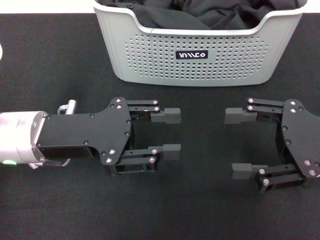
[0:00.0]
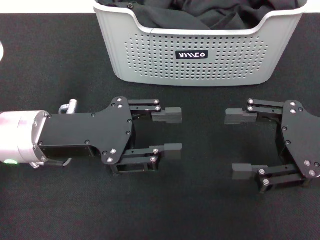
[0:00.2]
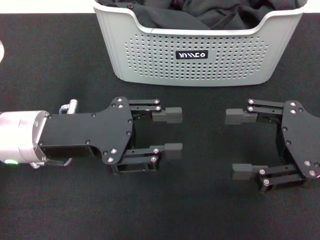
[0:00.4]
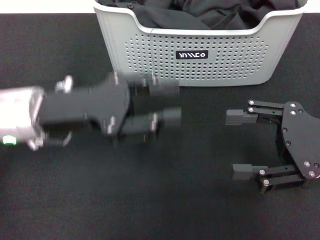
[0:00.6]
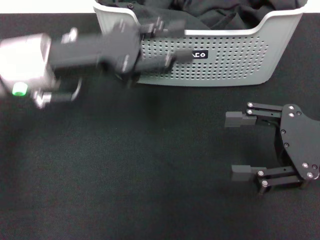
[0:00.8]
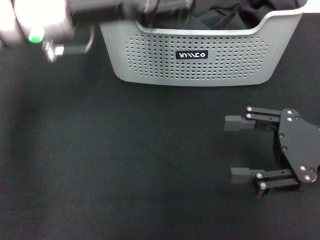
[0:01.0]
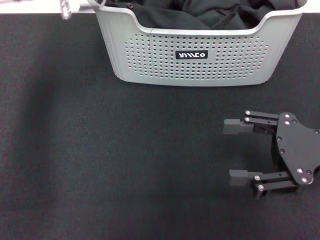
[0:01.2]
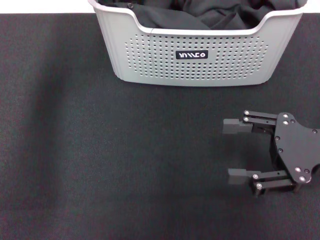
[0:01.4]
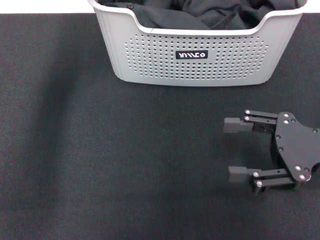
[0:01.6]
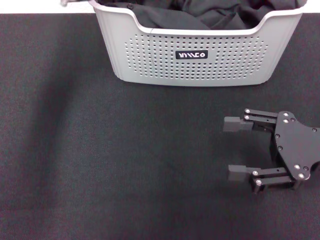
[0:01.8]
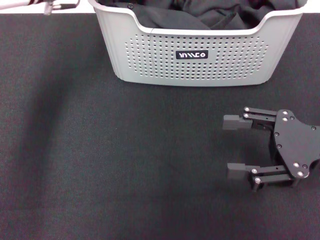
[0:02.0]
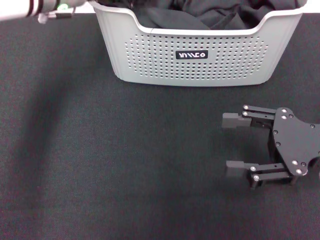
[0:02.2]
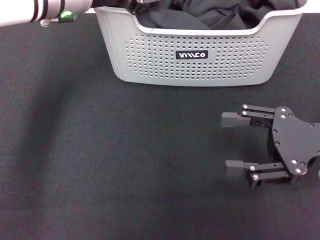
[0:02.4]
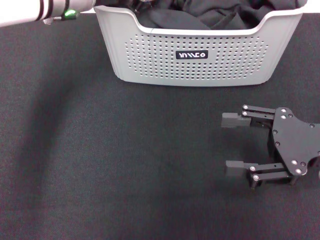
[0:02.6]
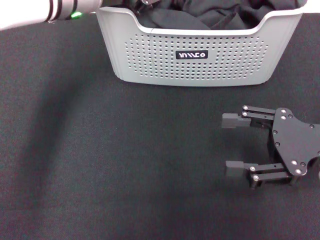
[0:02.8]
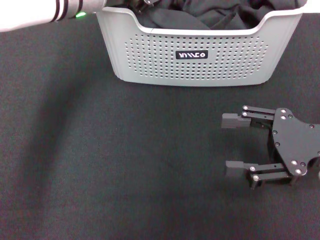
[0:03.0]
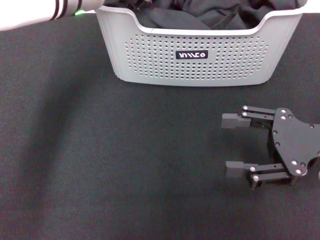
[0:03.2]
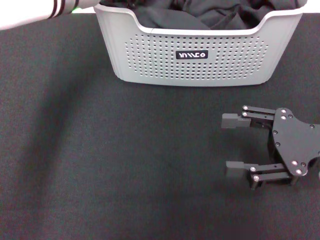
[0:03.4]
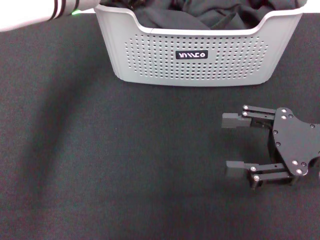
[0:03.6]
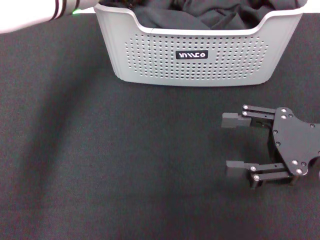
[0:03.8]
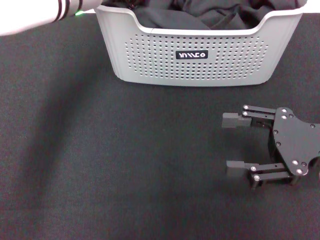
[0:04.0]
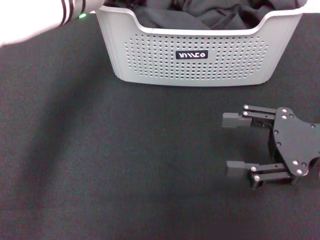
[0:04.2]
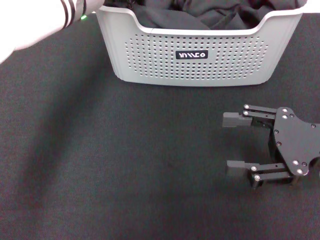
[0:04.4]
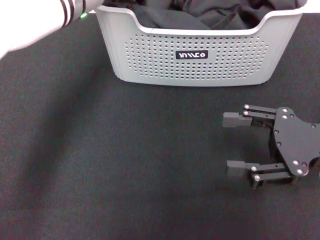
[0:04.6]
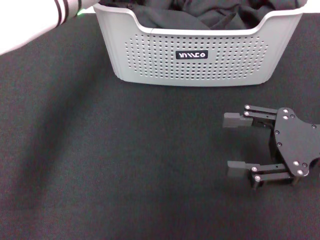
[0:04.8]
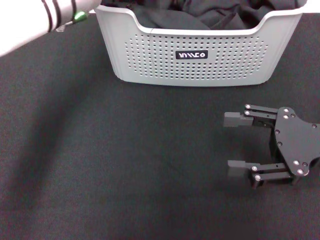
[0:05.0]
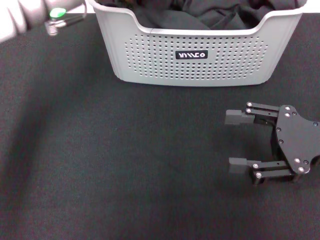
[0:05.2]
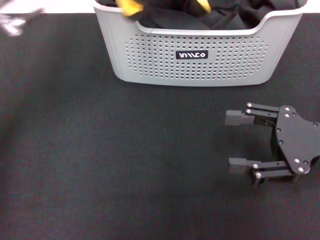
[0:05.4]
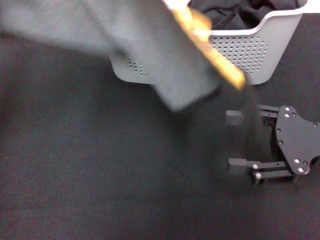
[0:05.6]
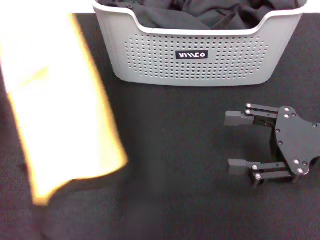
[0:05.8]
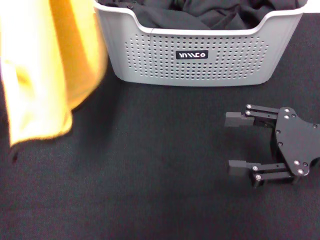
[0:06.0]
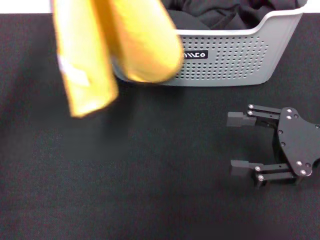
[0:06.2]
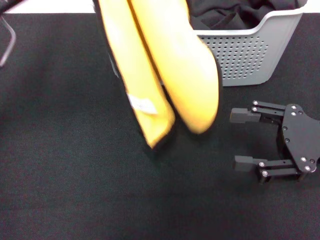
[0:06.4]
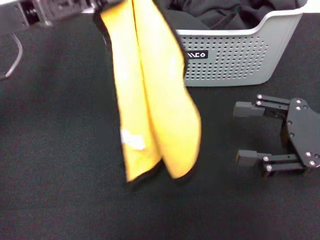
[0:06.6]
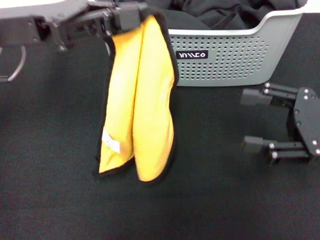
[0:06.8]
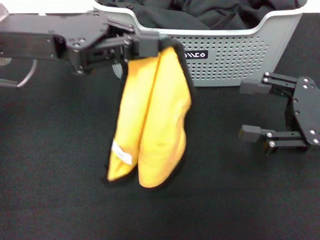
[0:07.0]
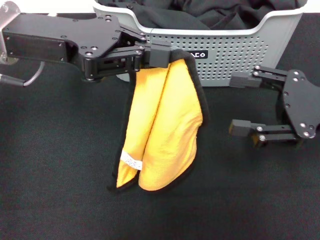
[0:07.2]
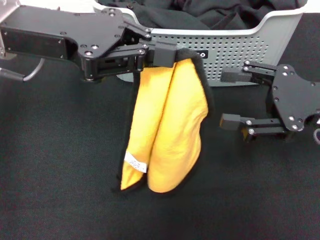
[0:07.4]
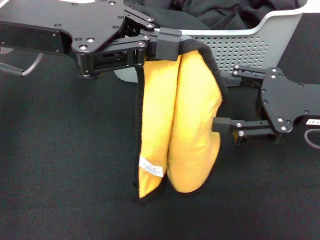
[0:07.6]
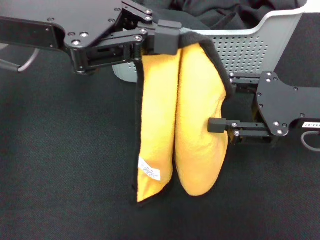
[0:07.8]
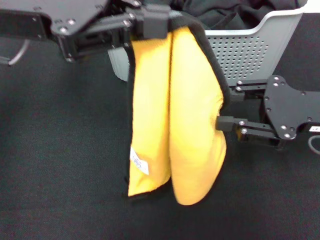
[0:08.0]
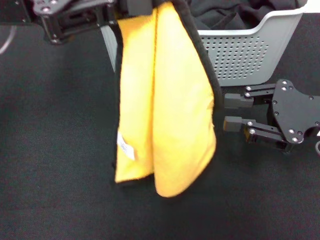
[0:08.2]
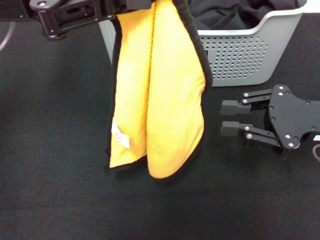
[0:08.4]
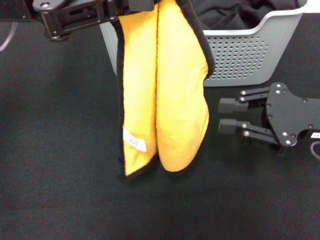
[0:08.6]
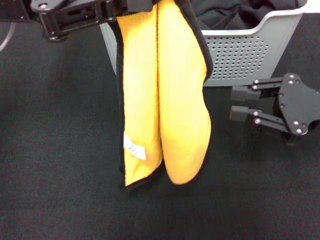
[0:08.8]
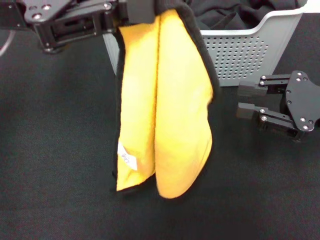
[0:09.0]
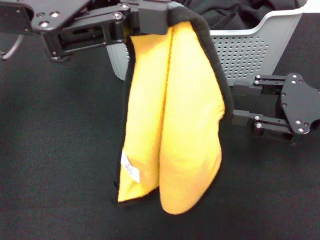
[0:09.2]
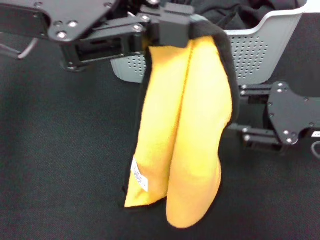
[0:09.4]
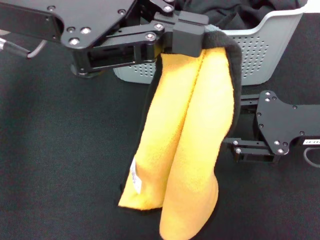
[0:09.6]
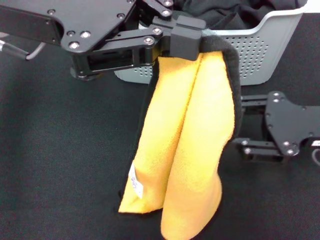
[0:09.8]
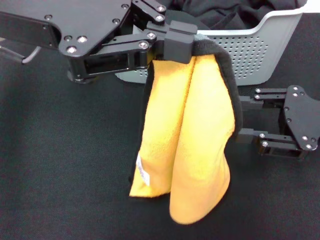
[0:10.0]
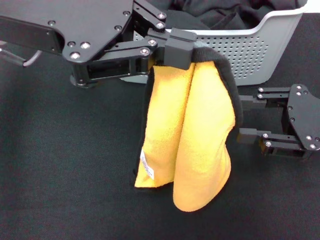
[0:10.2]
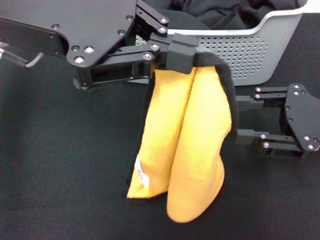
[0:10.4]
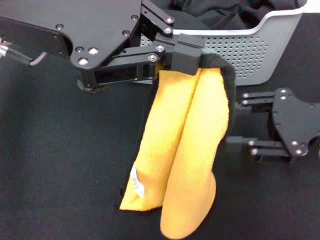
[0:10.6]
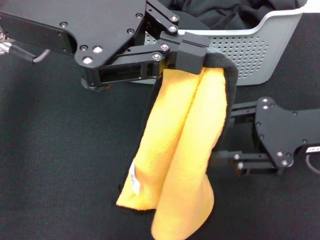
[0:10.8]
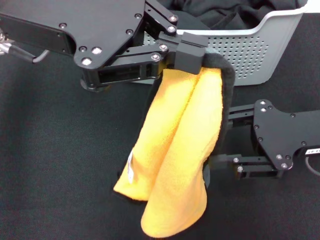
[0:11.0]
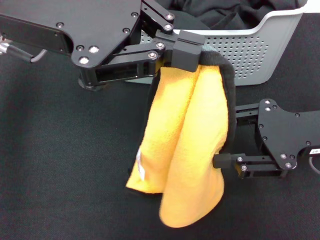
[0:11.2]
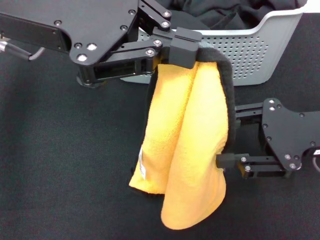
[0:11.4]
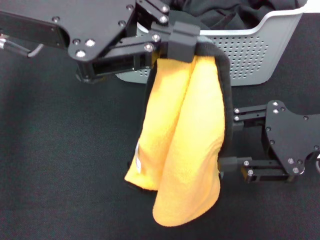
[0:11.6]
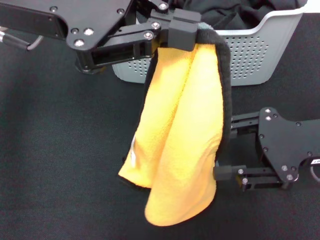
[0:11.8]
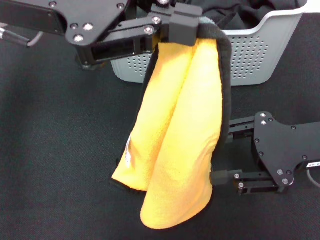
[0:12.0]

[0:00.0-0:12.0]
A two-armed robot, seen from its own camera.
Task of the whole recording: pick up the towel from the storage box and lay it flat on the black tablecloth.
Step, 0:00.0 to 0:05.2: Pick up a towel with the left gripper.
0:00.0 to 0:01.6: The left gripper travels forward, upward and to the right by about 20 cm.
0:03.0 to 0:04.4: The left gripper closes.
0:04.4 to 0:06.0: The left gripper goes about 15 cm to the left and backward.
0:06.0 to 0:07.6: The left gripper is displaced to the right by about 5 cm.
0:07.6 to 0:09.0: The right gripper closes.

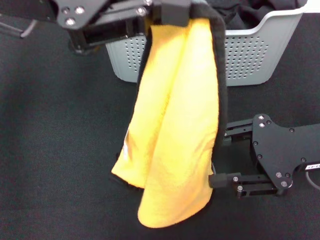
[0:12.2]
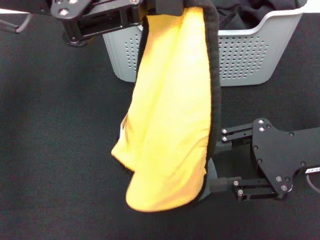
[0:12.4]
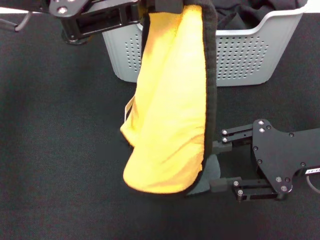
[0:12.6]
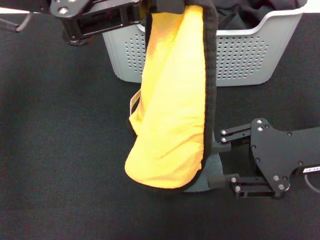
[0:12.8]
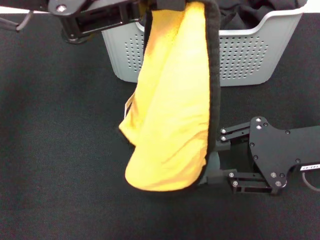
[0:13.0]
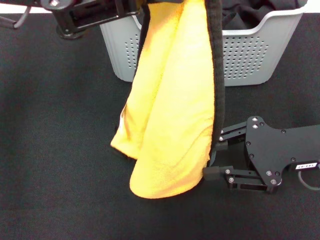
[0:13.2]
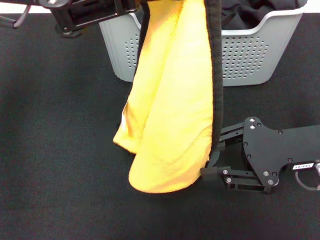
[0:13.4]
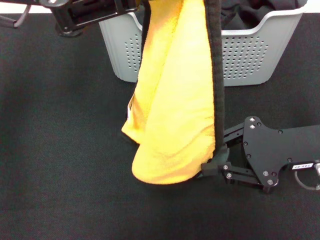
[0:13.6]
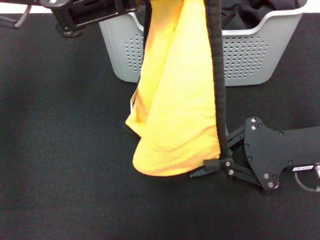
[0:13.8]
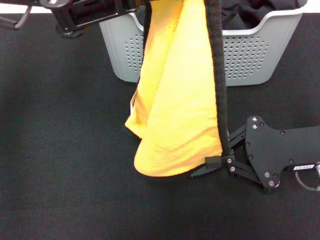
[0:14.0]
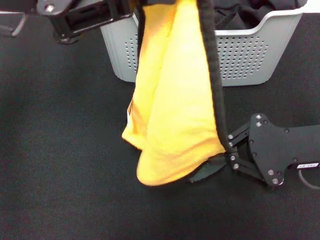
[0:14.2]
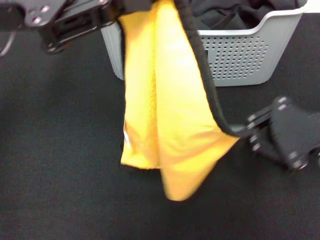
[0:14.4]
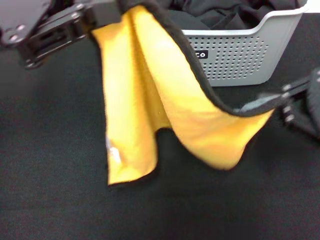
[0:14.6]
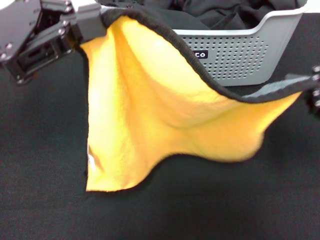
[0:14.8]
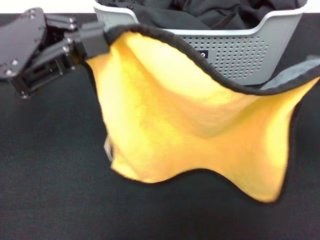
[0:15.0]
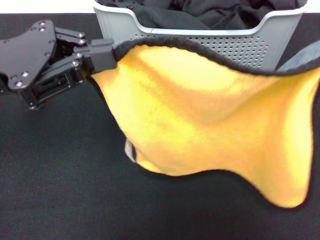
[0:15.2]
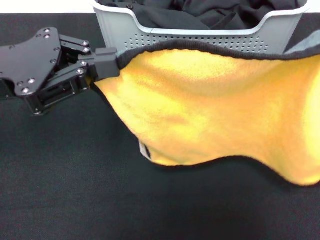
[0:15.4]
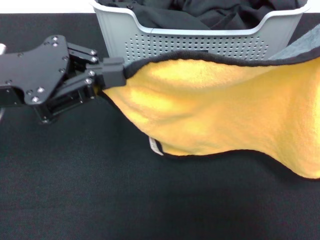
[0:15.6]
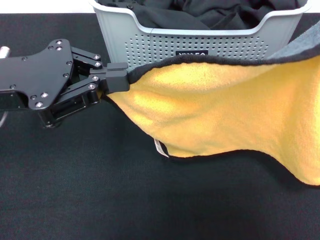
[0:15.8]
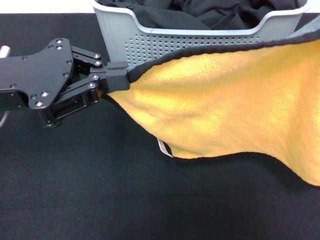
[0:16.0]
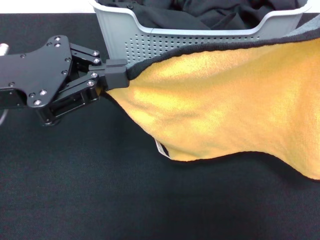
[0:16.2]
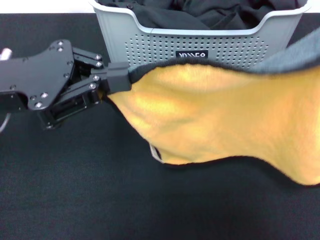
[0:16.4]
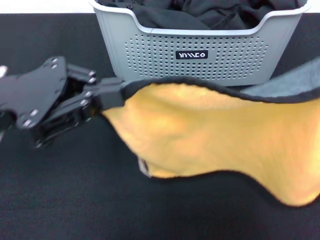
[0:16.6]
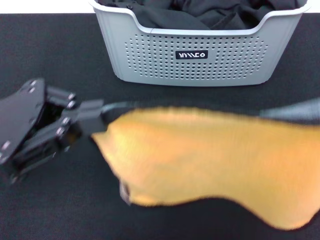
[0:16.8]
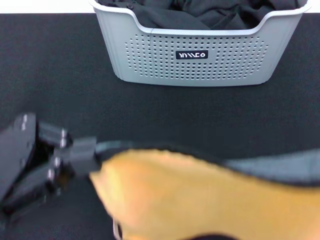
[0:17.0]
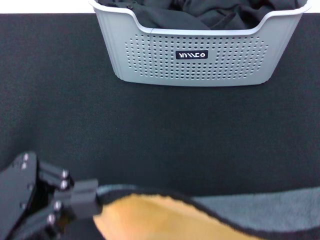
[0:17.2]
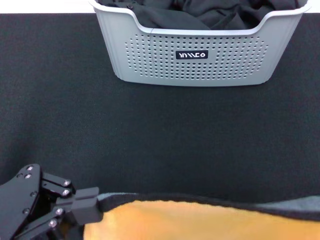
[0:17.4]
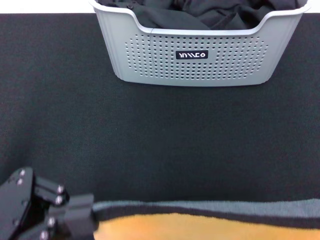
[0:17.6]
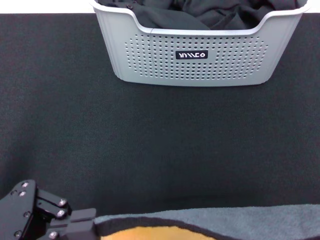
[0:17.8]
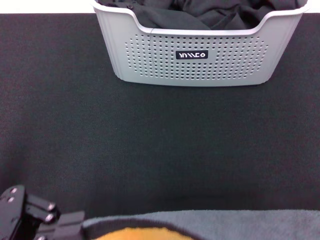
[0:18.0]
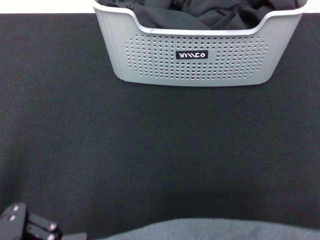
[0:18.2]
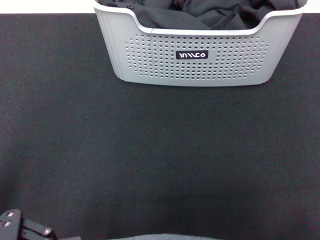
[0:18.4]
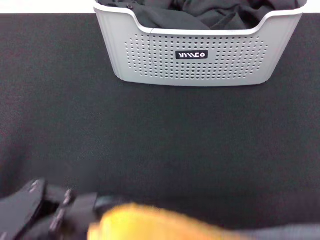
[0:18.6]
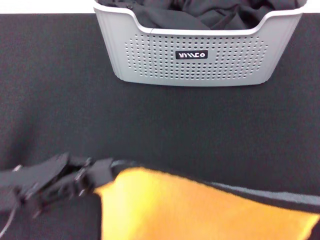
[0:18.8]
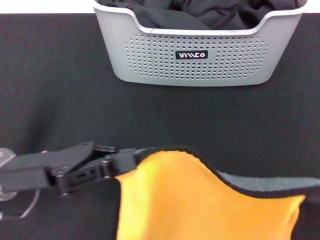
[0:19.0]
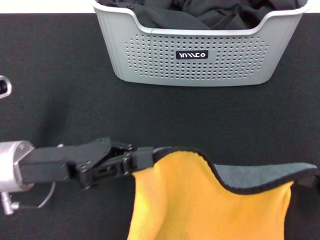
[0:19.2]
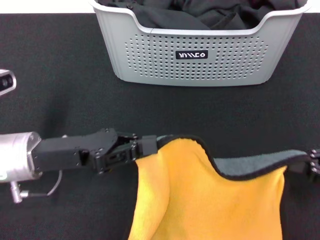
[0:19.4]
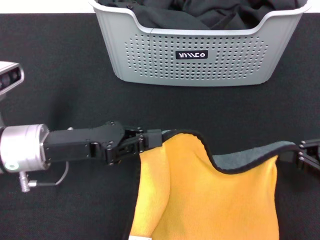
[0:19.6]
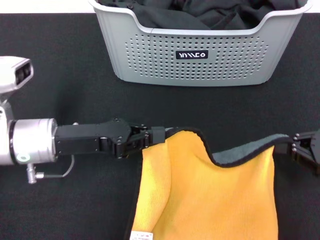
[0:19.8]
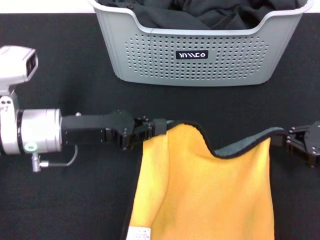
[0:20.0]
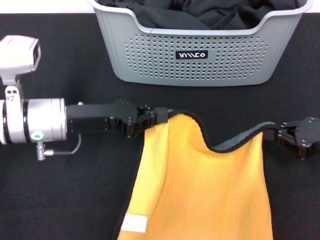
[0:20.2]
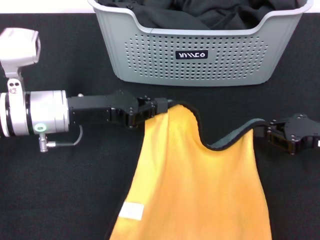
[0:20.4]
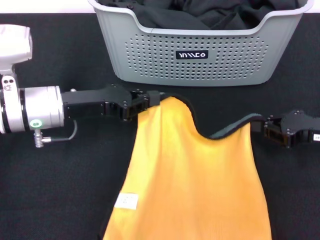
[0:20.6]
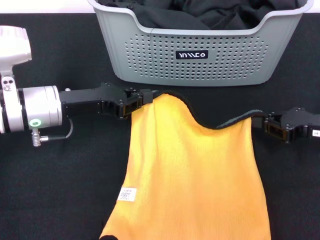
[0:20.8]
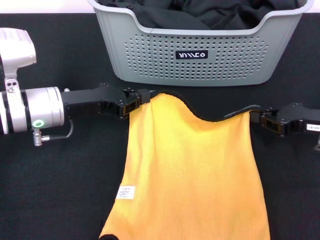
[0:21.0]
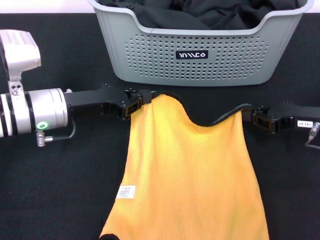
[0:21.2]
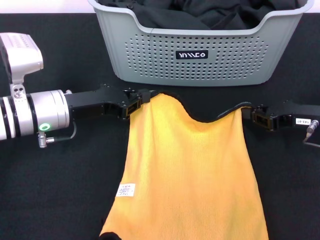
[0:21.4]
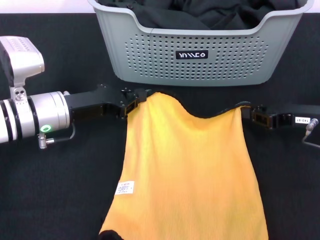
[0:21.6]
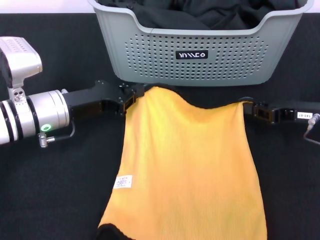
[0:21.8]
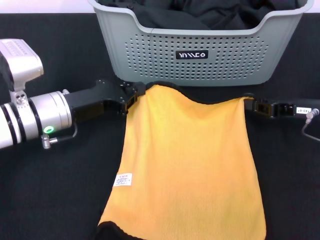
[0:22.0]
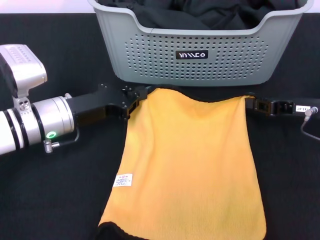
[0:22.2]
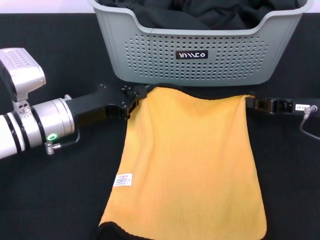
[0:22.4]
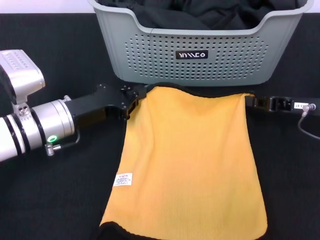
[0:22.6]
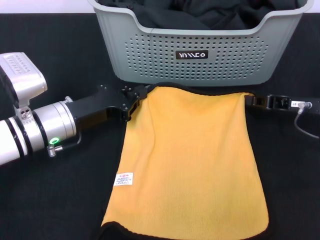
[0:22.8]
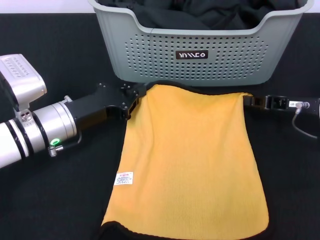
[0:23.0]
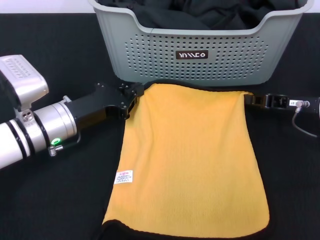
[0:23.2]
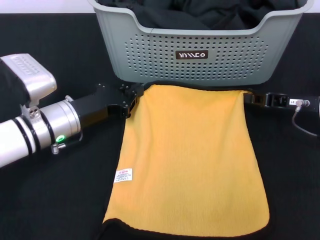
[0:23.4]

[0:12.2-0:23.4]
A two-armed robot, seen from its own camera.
Task of the whole recording: pick up the towel from the storage box and lay it flat on the black tablecloth.
0:13.8 to 0:15.4: The right gripper goes approximately 15 cm upward and to the right, while the left gripper goes roughly 10 cm downward and to the left.
0:15.4 to 0:17.0: The grippers both shift backward by about 10 cm.
0:17.0 to 0:18.6: The right gripper shifts about 5 cm downward; the left gripper ends up approximately 5 cm from where it was.
0:18.6 to 0:20.2: The right gripper heads forward and downward, covering approximately 20 cm. Meanwhile the left gripper moves forward, some 15 cm.
0:20.2 to 0:21.8: The right gripper heads forward, covering about 5 cm.
